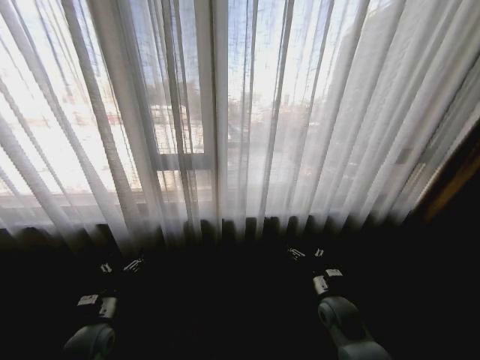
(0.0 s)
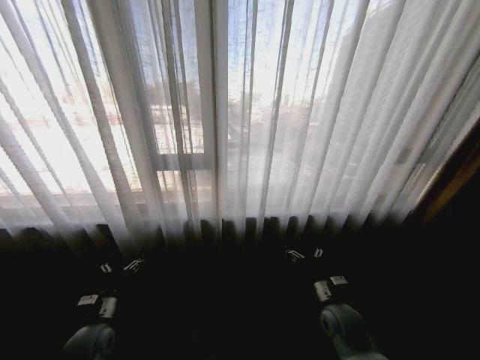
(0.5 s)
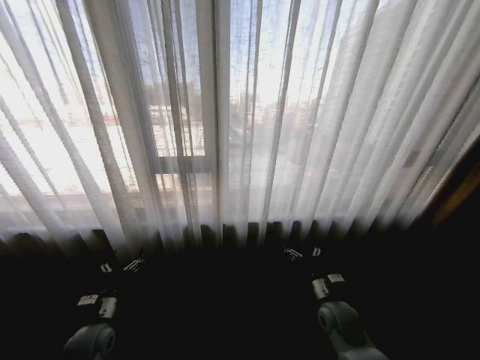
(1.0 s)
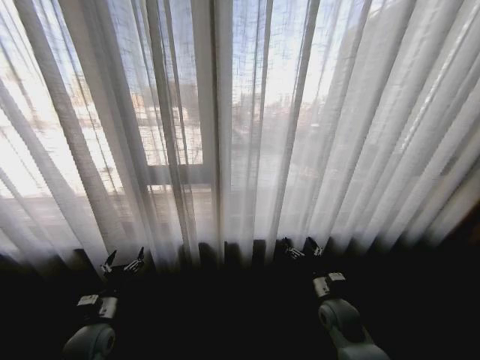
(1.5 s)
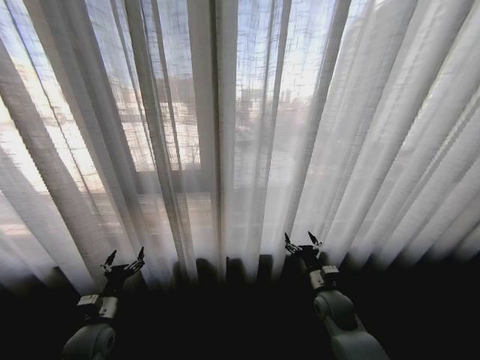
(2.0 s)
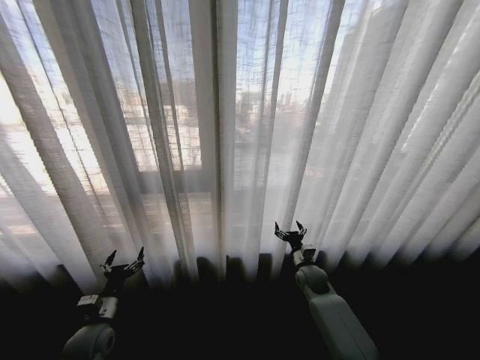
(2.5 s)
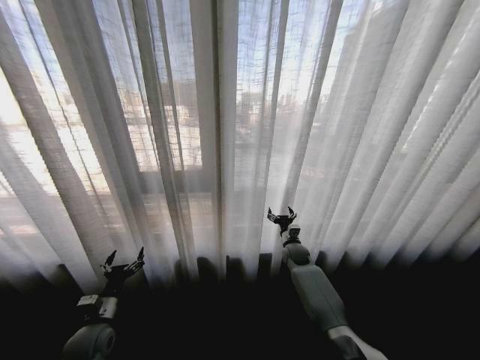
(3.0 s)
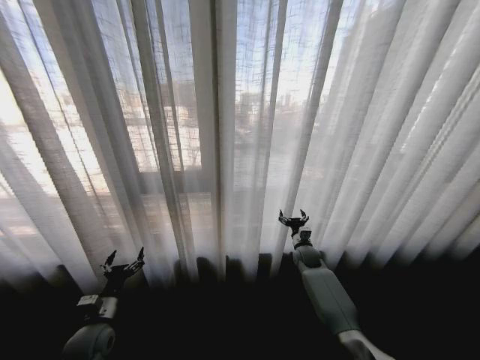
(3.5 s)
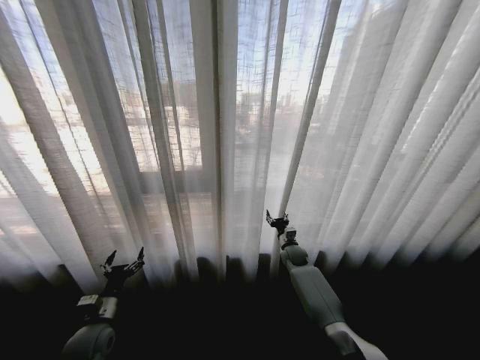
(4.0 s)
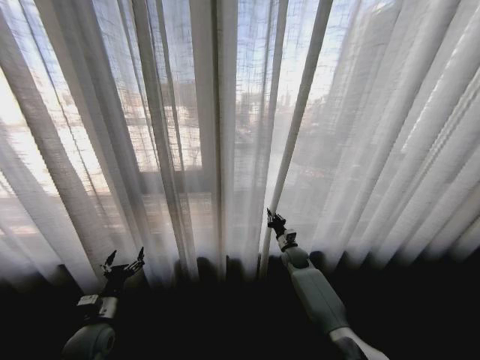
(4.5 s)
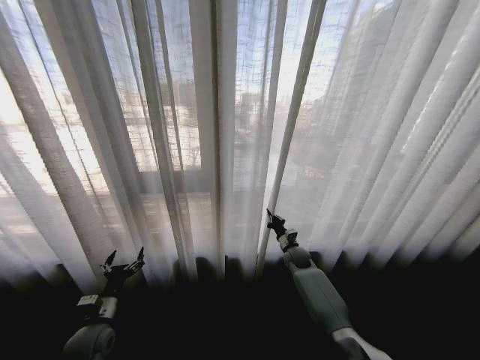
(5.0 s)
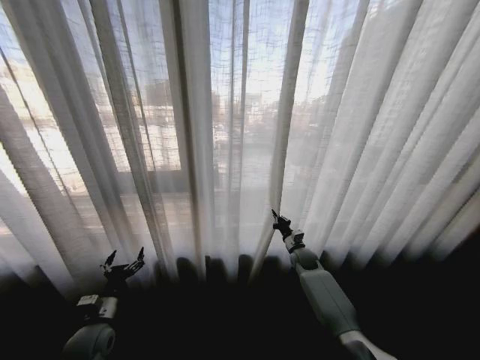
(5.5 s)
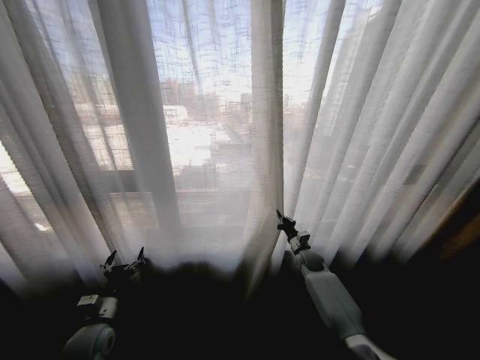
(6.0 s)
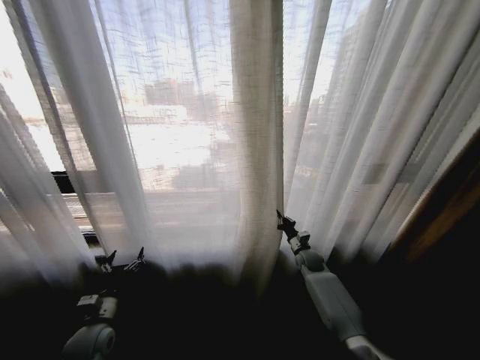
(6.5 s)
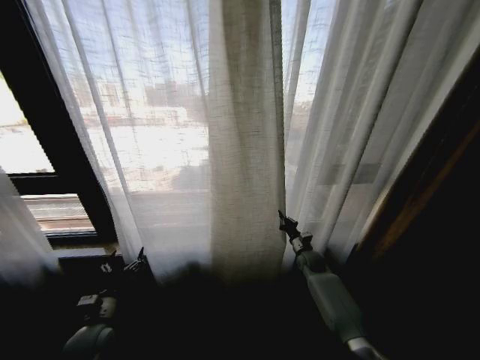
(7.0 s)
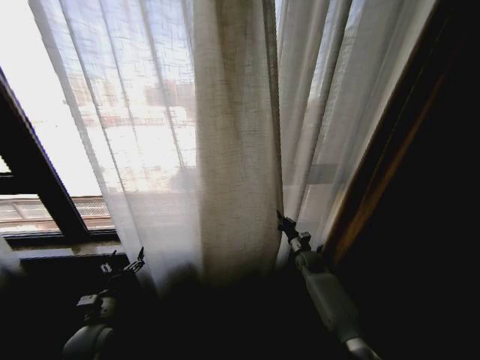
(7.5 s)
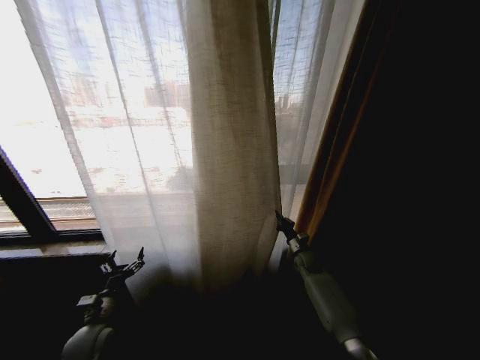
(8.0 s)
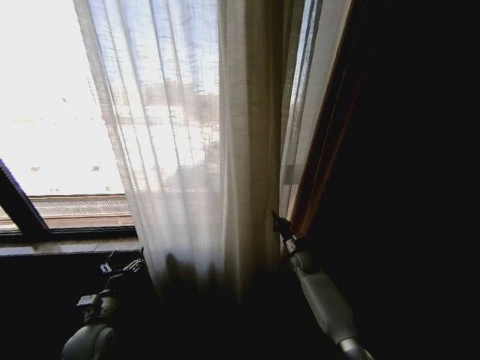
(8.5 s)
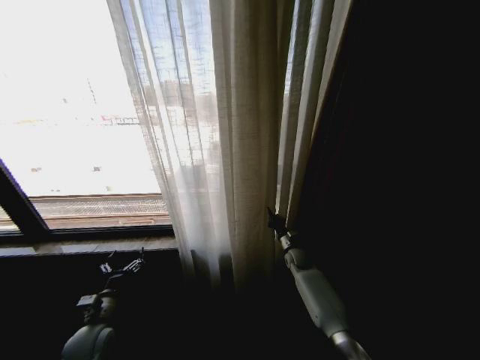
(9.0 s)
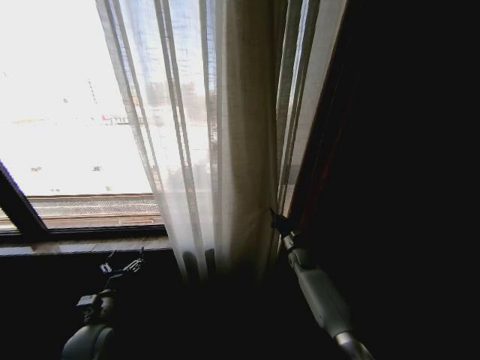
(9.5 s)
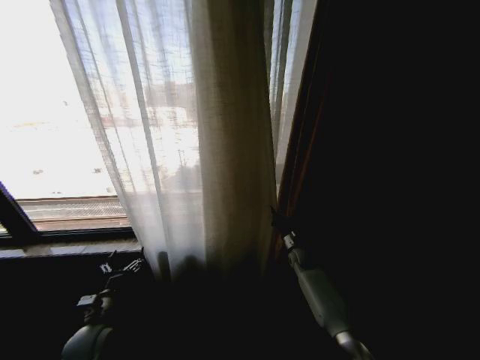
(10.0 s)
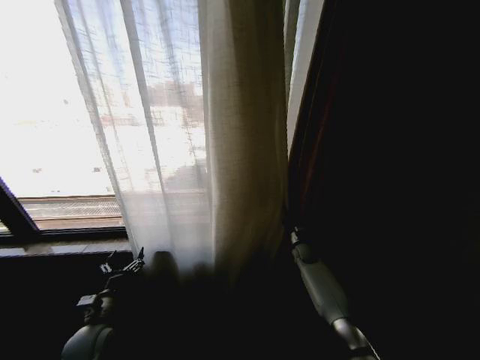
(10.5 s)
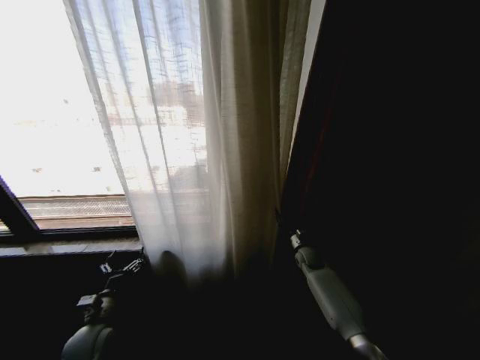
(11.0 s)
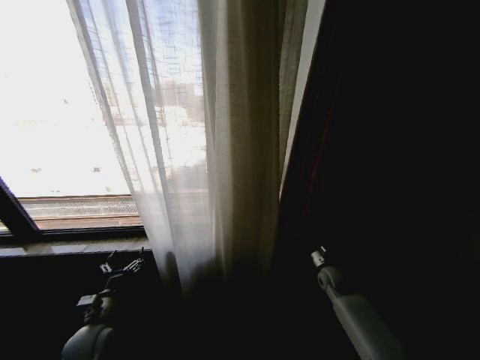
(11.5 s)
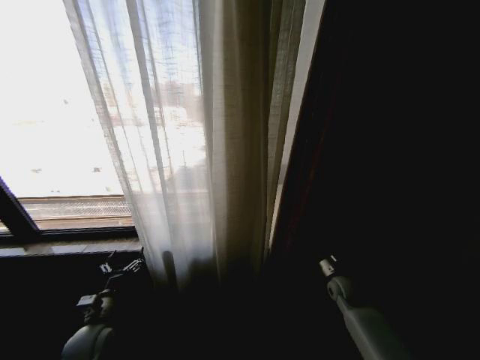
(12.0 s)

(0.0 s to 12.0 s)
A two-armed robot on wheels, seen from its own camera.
Task of the whole recording: Open the curtains by pulling them apart, changing their state from closed to fully open.
2.0 s - 4.0 s: The right gripper shifts roughly 20 cm forward.
4.0 s - 6.0 s: The right gripper shifts by approximately 5 cm, and closes.
10.0 s - 12.0 s: The right gripper heads backward and to the right, covering about 15 cm, and opens its fingers.

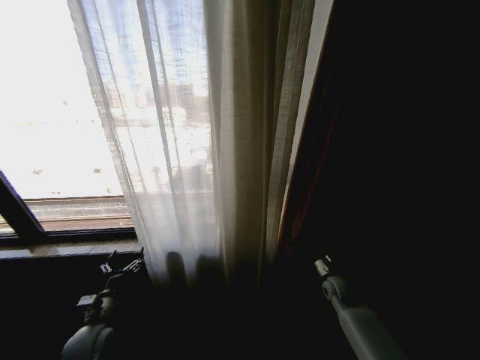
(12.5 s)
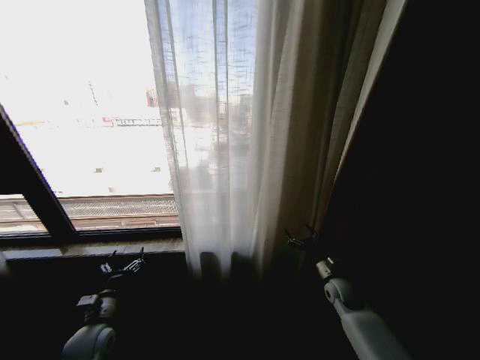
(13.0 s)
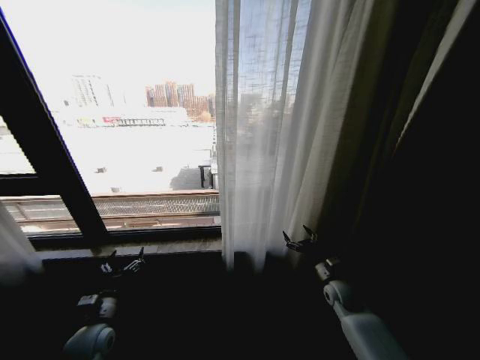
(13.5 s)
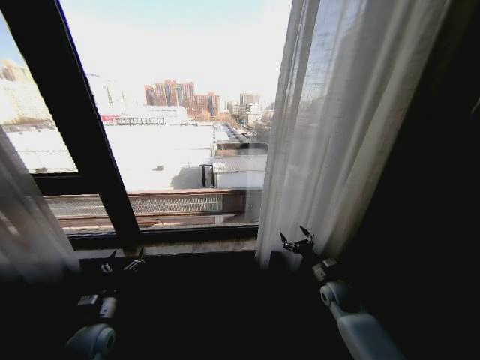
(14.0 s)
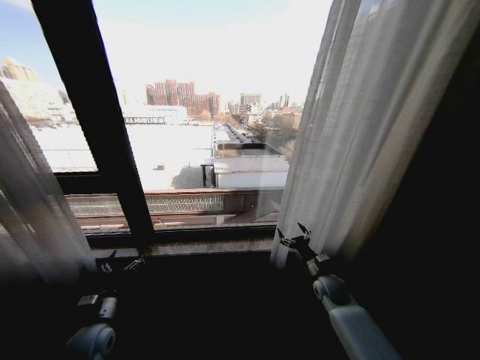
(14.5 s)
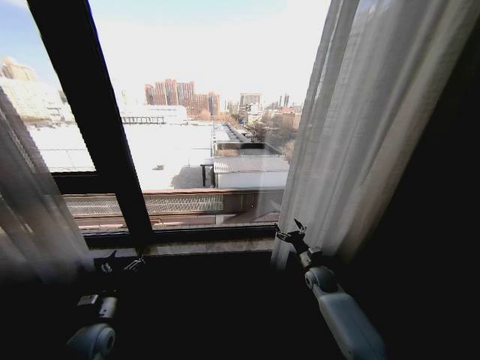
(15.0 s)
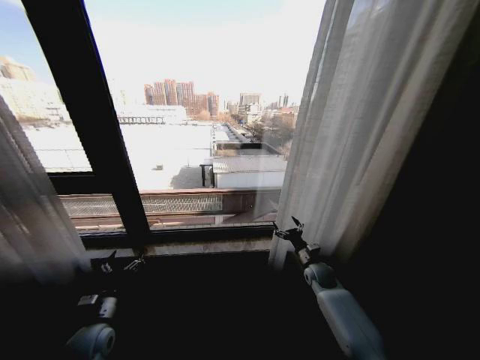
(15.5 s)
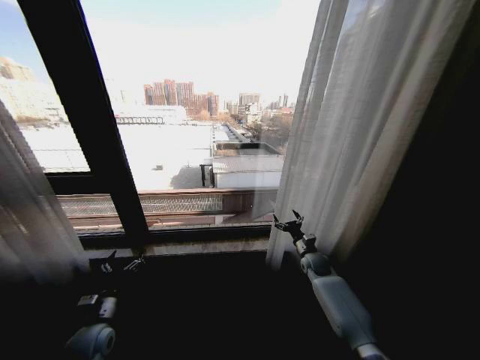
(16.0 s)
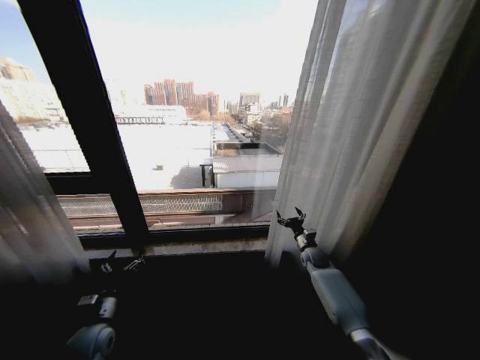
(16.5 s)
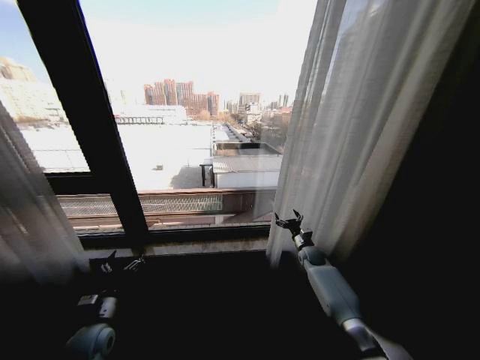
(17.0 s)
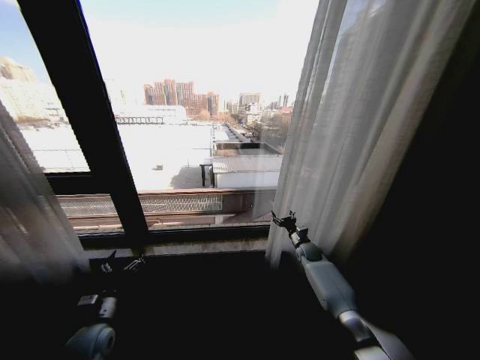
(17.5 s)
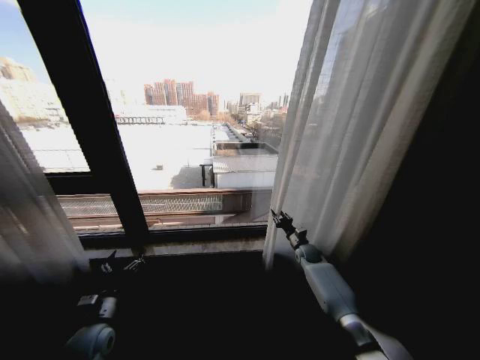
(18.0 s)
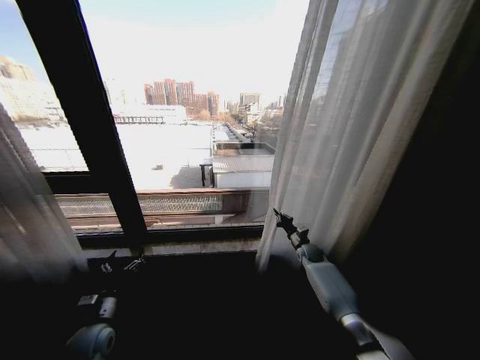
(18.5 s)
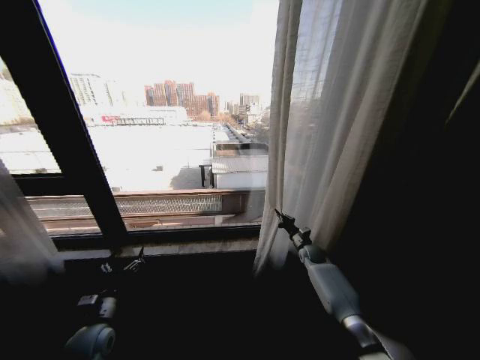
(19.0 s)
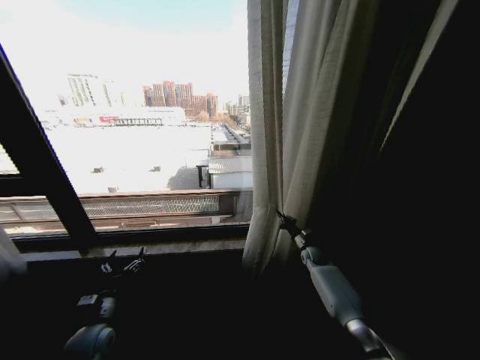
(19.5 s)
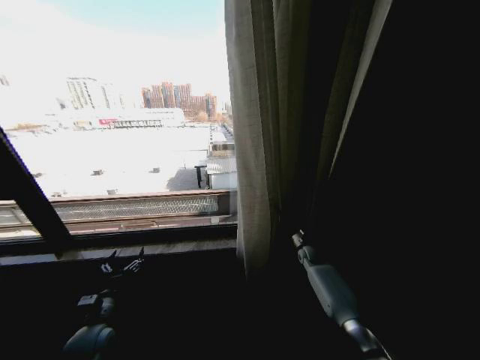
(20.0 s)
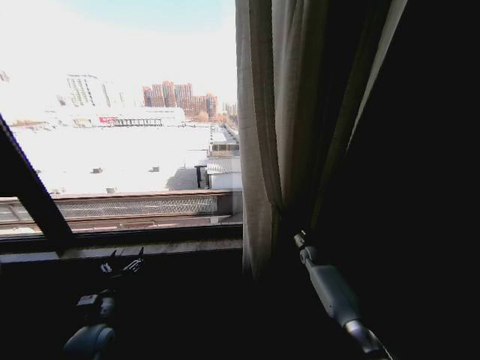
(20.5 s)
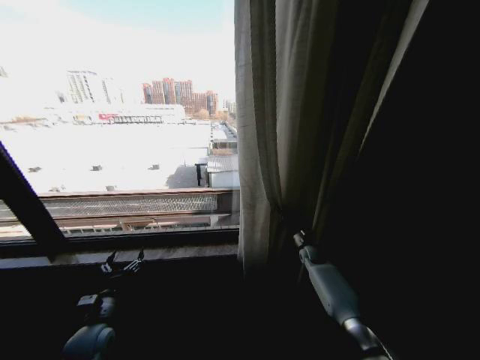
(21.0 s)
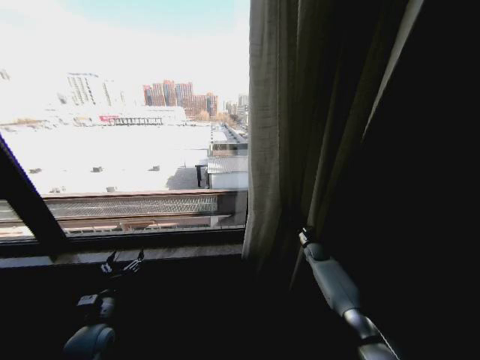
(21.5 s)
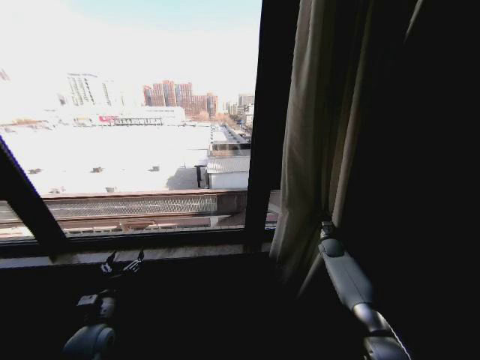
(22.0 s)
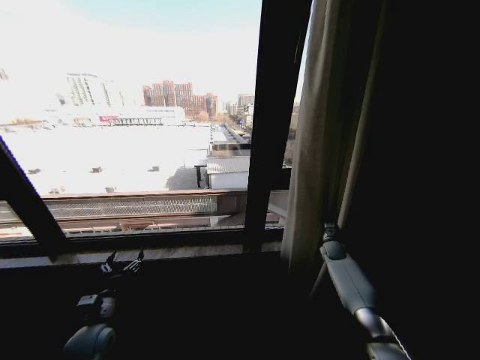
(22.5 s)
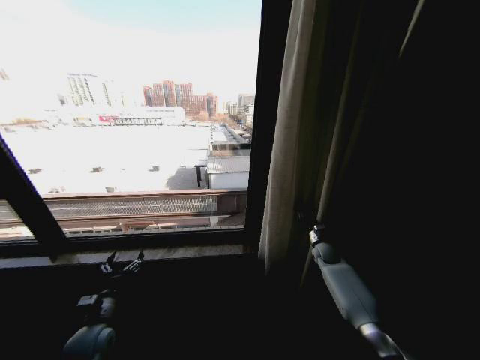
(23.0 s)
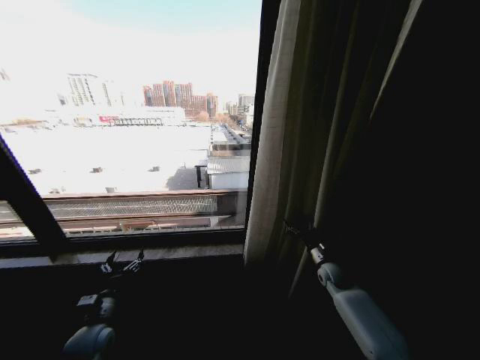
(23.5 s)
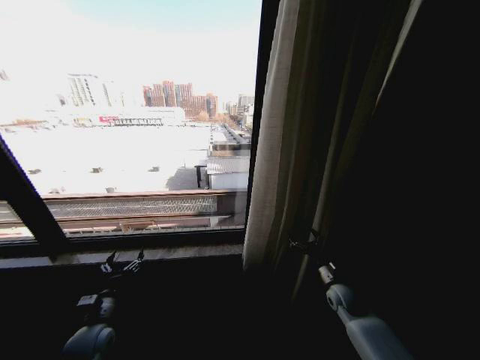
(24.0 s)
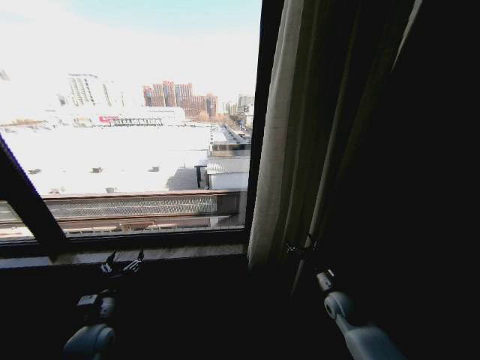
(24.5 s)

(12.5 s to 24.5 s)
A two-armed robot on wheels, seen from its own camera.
Task of the whole recording: Open the curtains by pulling them apart, changing their state from closed to fully open.
14.5 s - 16.5 s: The right gripper moves forward, about 10 cm.
16.5 s - 18.5 s: The right gripper closes its fingers.
20.5 s - 22.5 s: The right gripper shifts roughly 10 cm to the right.
22.5 s - 24.5 s: The right gripper travels backward and to the left by some 20 cm, and opens.

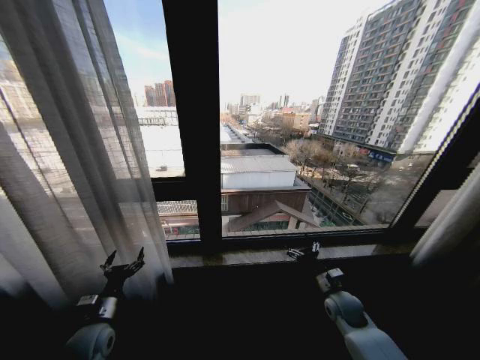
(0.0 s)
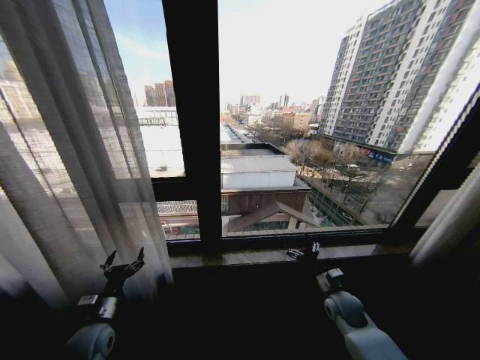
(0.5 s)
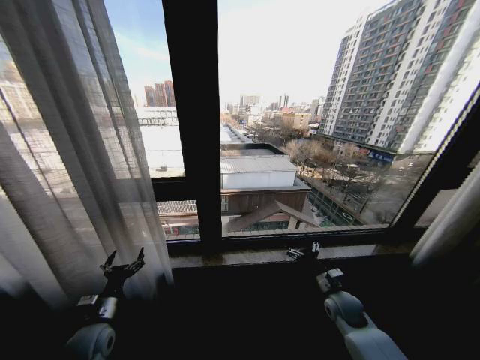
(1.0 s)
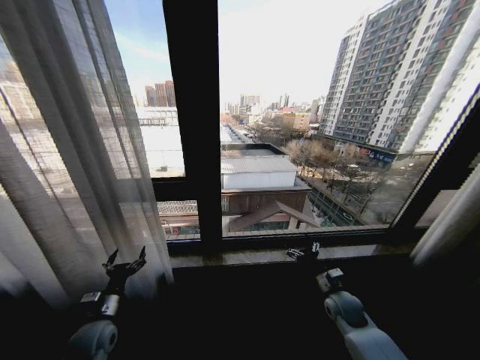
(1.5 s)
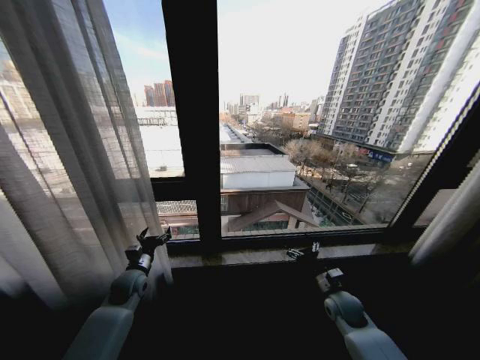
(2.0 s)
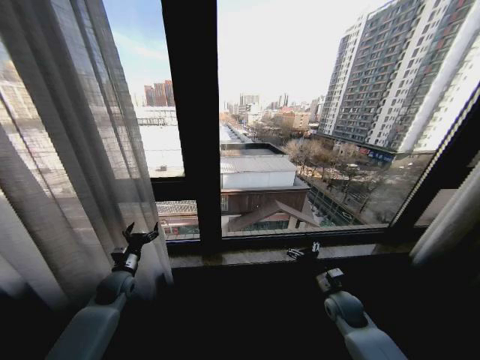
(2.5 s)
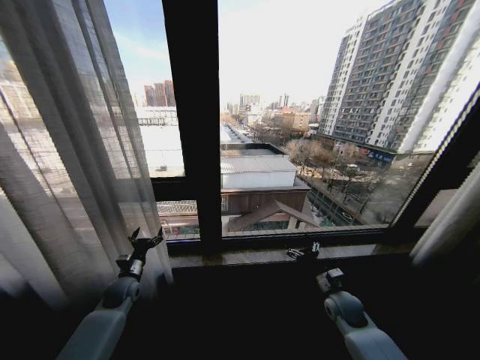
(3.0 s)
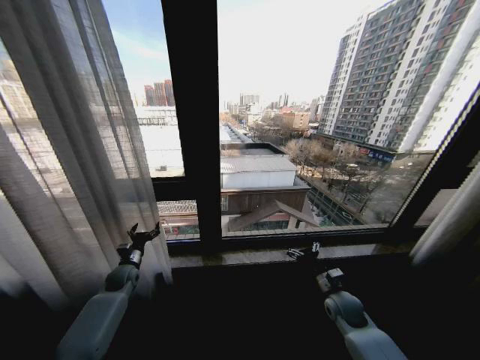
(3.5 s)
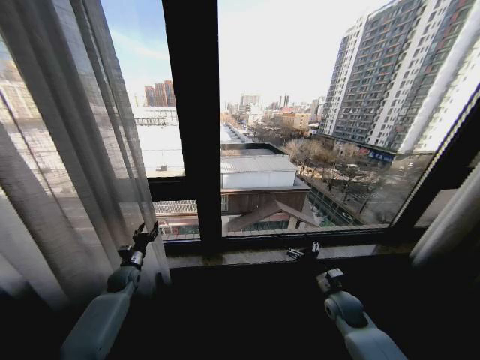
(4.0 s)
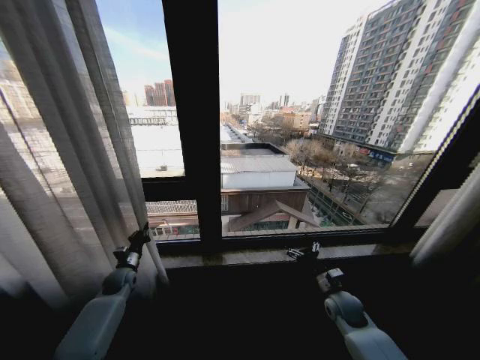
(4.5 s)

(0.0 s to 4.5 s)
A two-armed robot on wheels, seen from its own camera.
Task of the whole recording: Open the curtains by pulling them apart, changing their state from closed to fully open.
0.0 s - 2.0 s: The left gripper heads forward, covering about 15 cm.
2.0 s - 4.5 s: The left gripper goes roughly 10 cm to the left and downward, and closes its fingers.
